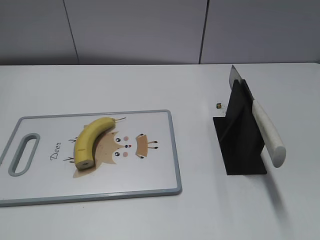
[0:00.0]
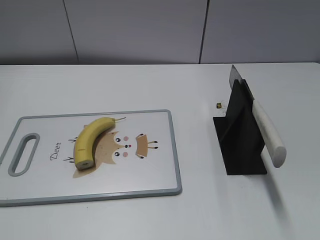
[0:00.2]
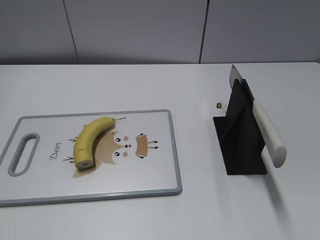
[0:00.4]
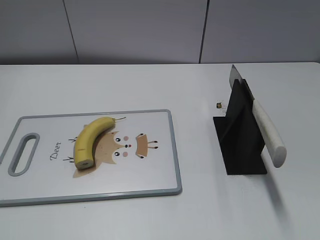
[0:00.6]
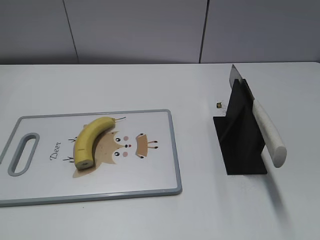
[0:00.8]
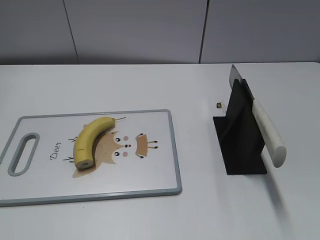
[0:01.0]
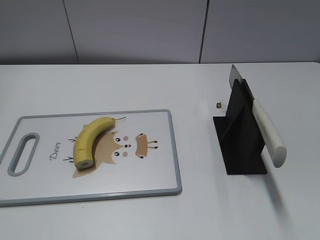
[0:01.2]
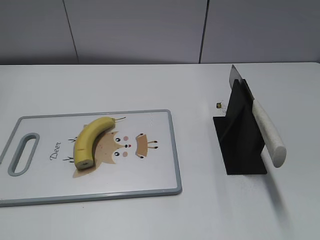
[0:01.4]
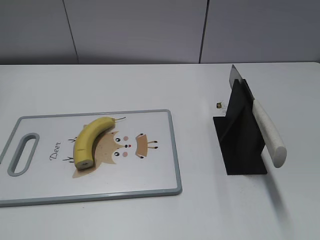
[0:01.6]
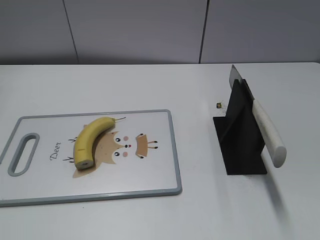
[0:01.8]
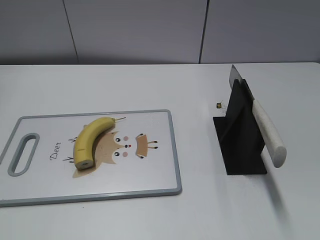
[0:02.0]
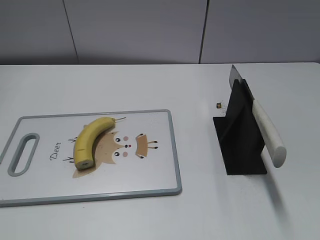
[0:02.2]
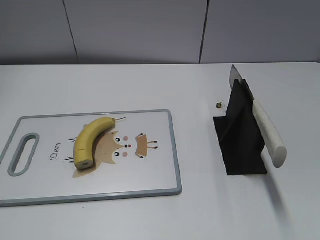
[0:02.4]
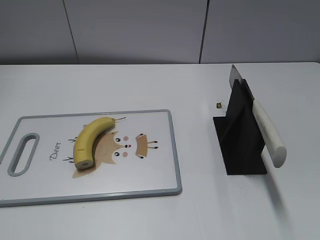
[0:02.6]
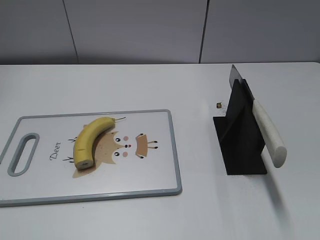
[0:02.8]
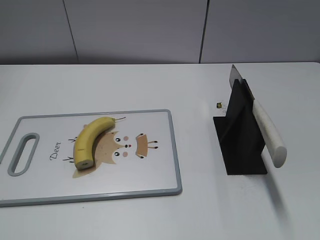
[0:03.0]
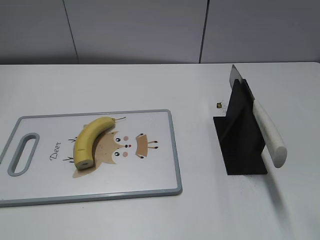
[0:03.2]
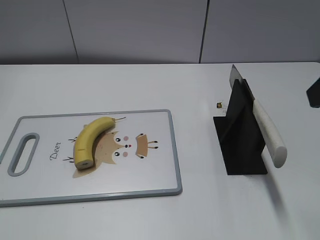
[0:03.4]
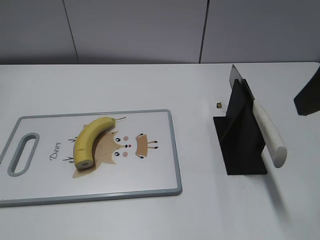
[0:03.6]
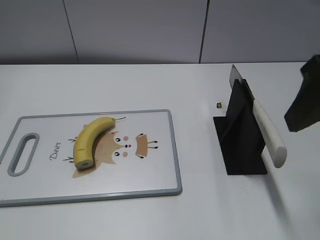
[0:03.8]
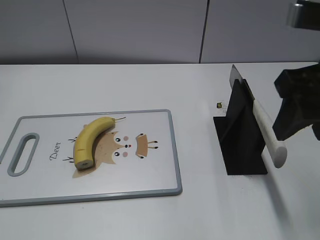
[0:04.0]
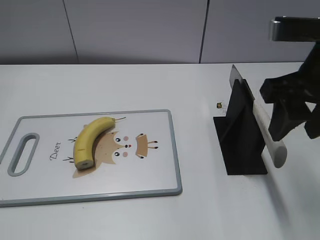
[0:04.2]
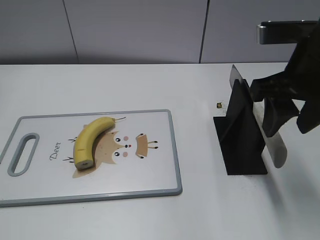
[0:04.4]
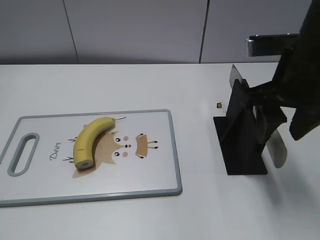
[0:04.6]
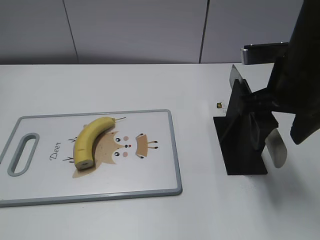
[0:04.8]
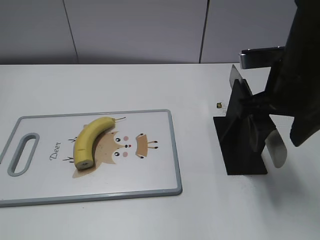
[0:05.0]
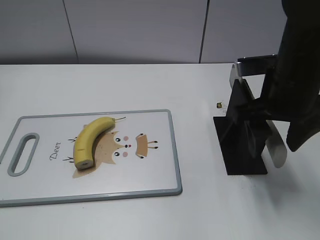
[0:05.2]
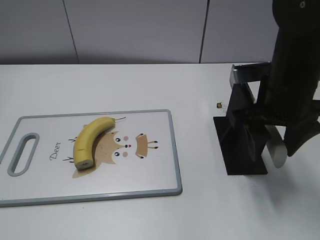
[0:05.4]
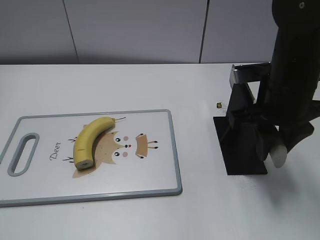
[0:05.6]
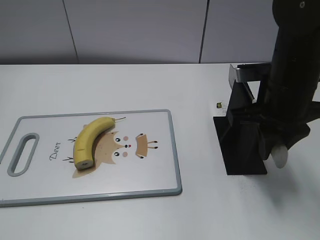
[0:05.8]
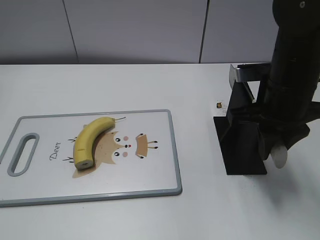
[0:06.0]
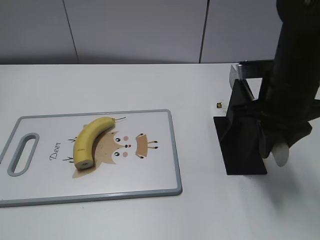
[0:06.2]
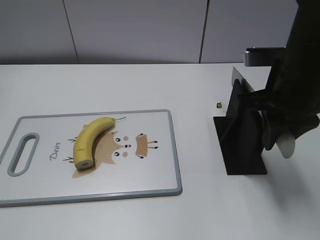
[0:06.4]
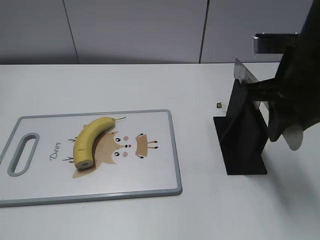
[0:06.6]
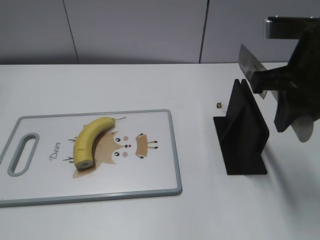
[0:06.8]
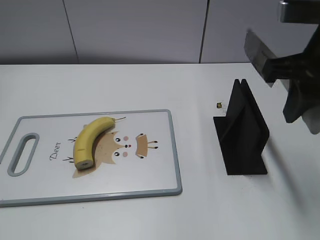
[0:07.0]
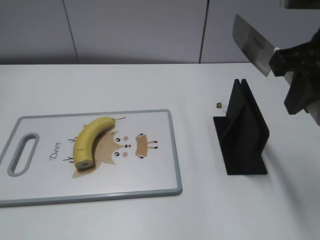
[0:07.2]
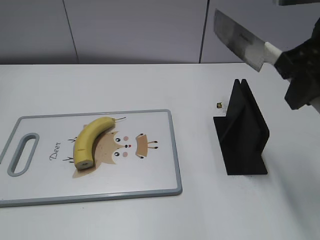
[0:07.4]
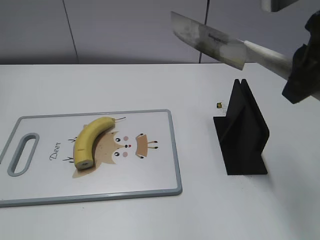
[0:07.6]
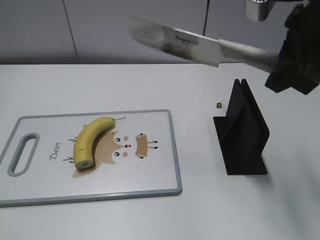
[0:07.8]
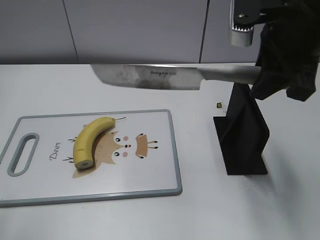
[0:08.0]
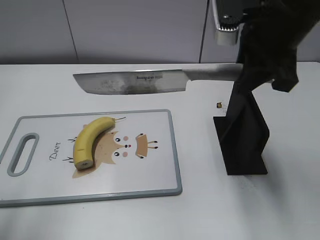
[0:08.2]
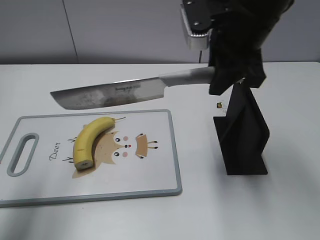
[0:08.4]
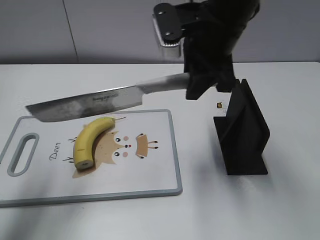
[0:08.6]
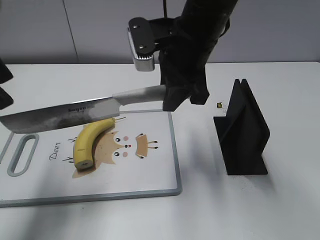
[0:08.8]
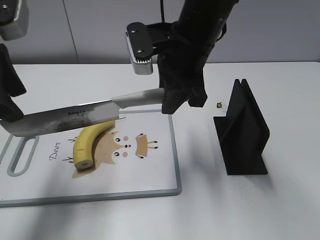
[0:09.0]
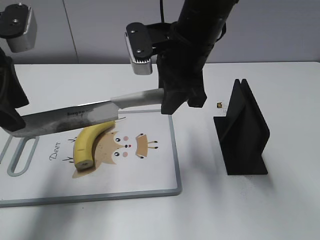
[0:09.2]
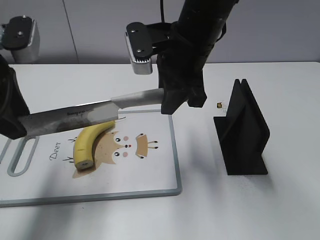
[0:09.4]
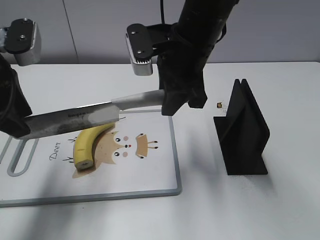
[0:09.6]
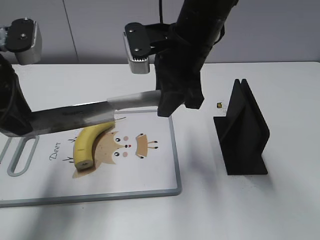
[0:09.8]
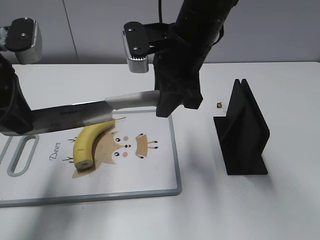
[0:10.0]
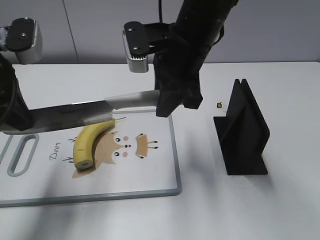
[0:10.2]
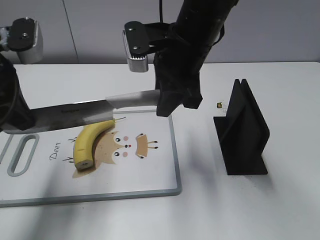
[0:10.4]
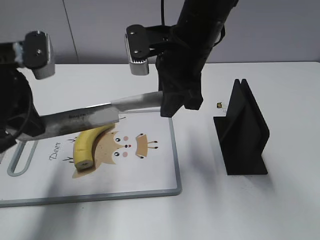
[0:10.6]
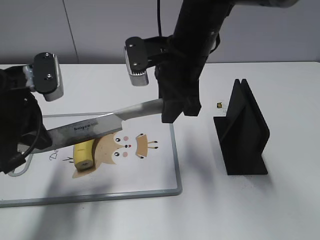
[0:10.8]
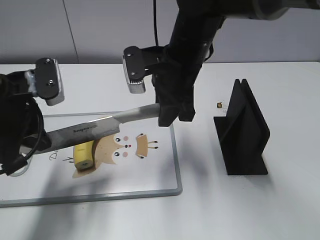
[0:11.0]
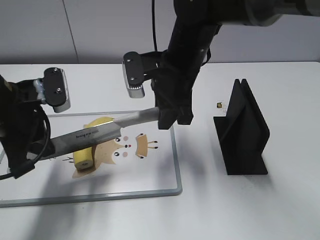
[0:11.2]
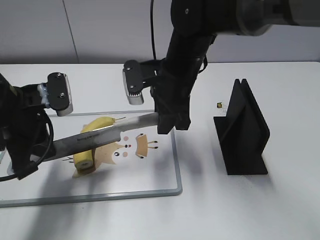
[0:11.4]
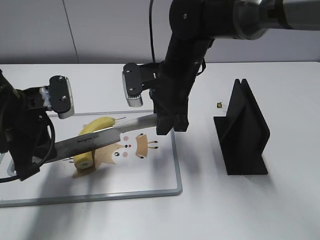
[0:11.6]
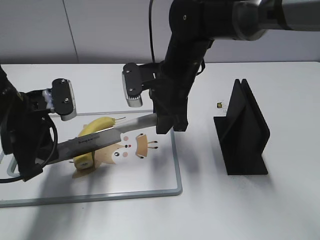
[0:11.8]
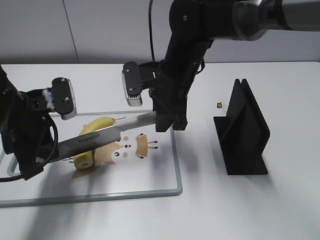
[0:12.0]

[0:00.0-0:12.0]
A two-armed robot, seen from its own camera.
Task of the whole recording: cut banana.
Step, 0:00.0 to 0:07.0: Grab the knife handle with your right hand.
0:03.0 to 0:04.4: The right gripper is displaced forward, downward and to the left by roughly 15 cm.
0:04.4 to 0:06.0: The right gripper travels downward by approximately 5 cm, and closes its fingers.
0:06.0 to 0:07.6: The right gripper is displaced upward by some 10 cm.
0:07.6 to 0:09.0: The right gripper is displaced to the left, forward and downward by roughly 20 cm. Meanwhile the left gripper shifts approximately 25 cm forward.
0:09.0 to 0:10.4: The left gripper closes up.
0:10.4 to 0:12.0: The grippers both shift downward by approximately 10 cm.

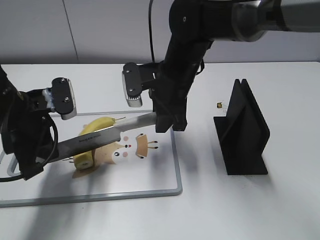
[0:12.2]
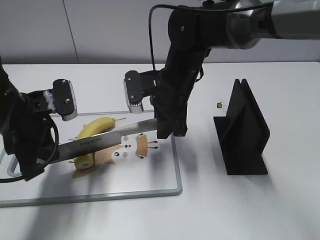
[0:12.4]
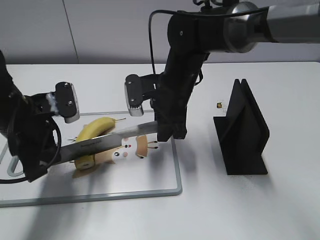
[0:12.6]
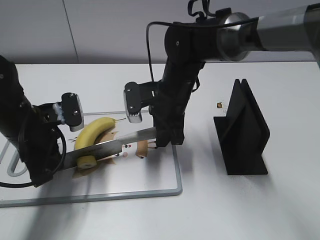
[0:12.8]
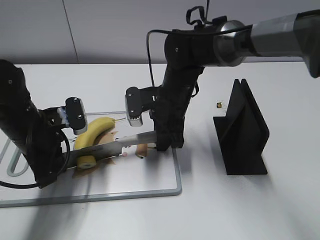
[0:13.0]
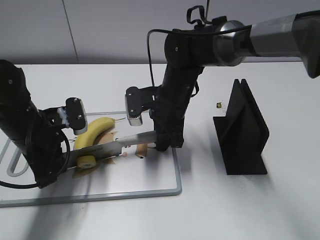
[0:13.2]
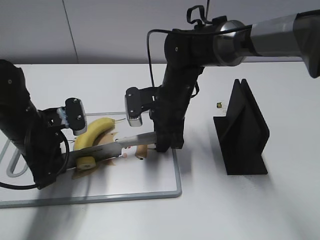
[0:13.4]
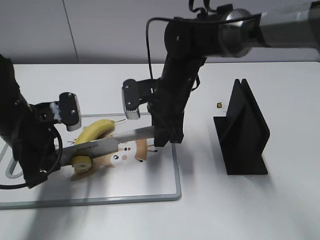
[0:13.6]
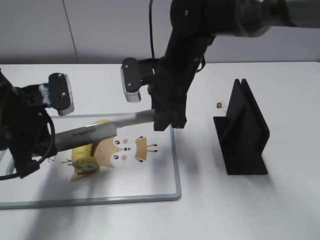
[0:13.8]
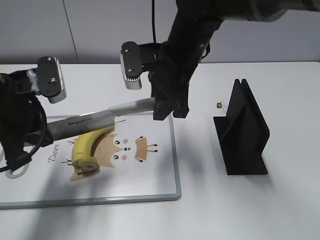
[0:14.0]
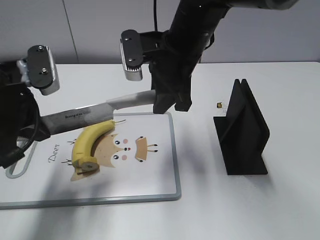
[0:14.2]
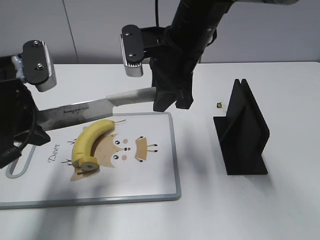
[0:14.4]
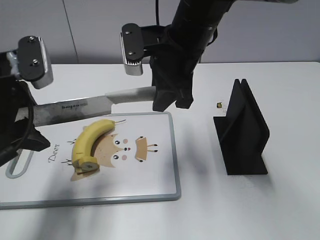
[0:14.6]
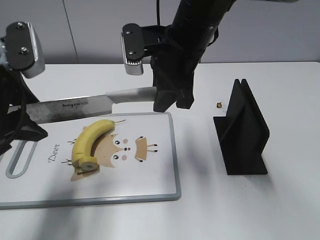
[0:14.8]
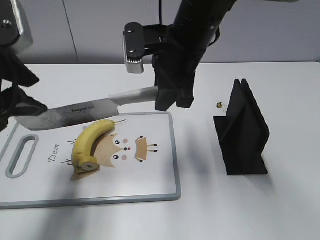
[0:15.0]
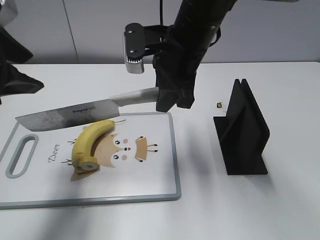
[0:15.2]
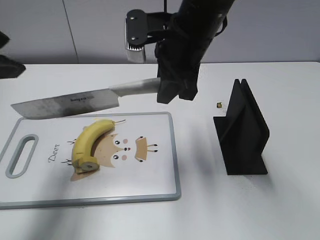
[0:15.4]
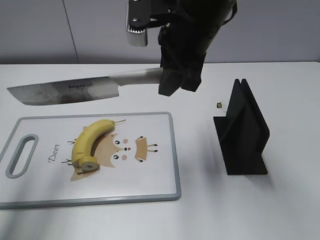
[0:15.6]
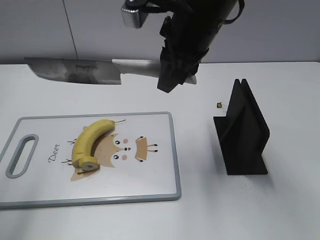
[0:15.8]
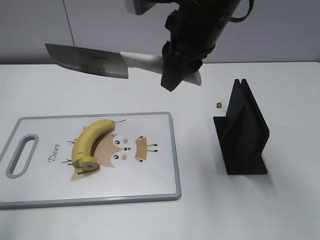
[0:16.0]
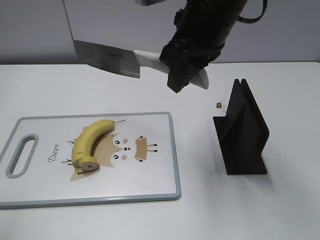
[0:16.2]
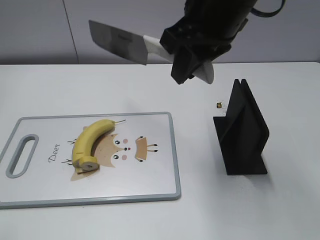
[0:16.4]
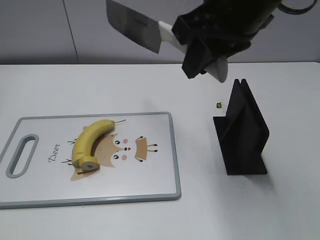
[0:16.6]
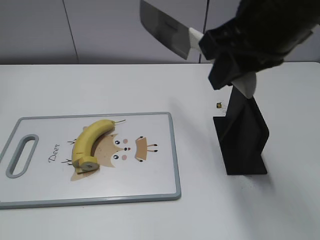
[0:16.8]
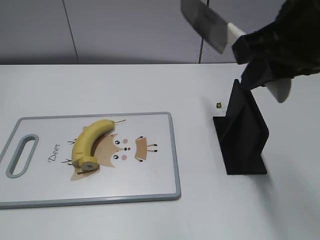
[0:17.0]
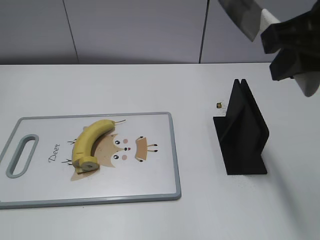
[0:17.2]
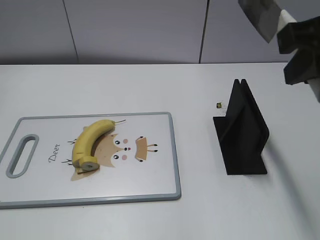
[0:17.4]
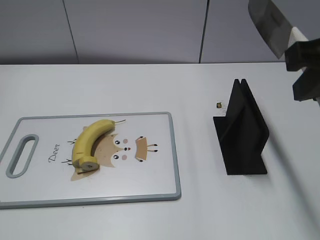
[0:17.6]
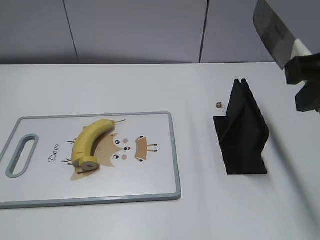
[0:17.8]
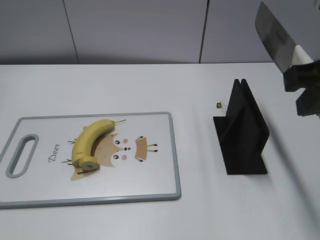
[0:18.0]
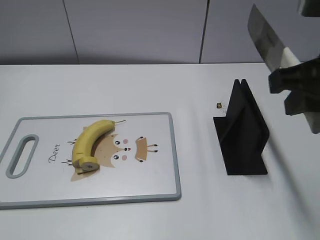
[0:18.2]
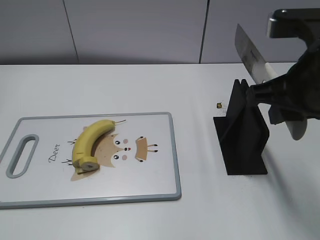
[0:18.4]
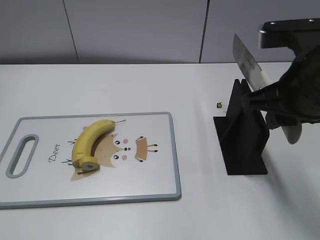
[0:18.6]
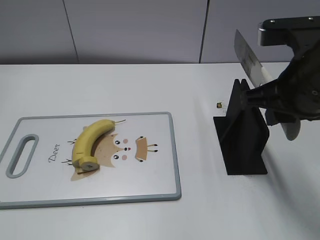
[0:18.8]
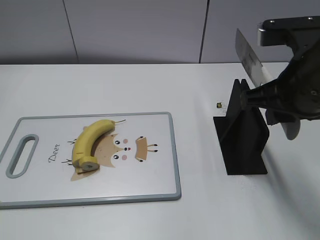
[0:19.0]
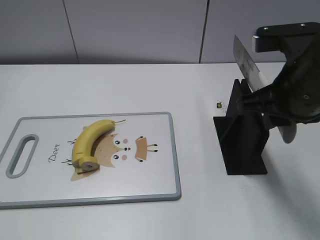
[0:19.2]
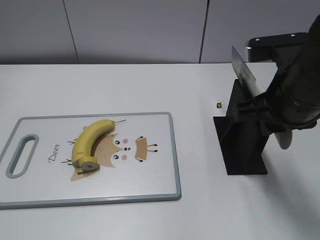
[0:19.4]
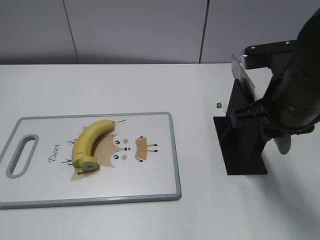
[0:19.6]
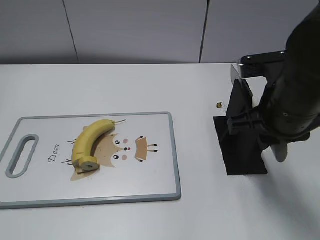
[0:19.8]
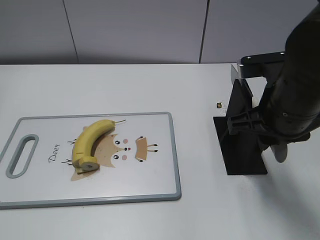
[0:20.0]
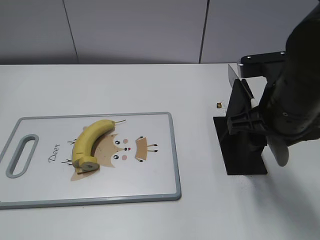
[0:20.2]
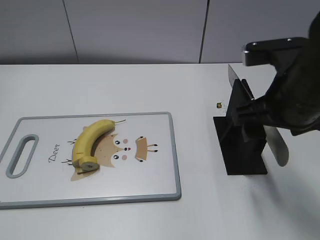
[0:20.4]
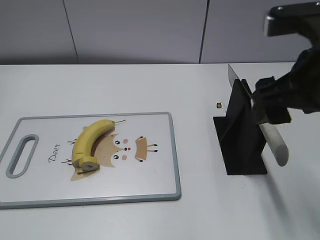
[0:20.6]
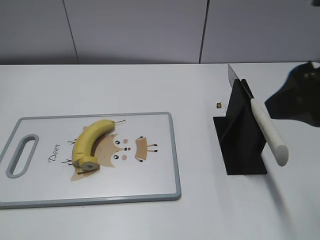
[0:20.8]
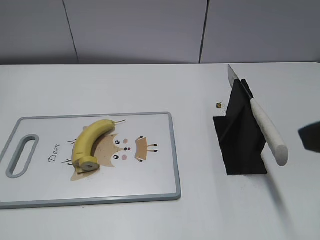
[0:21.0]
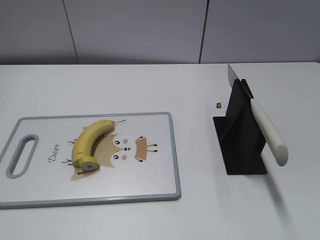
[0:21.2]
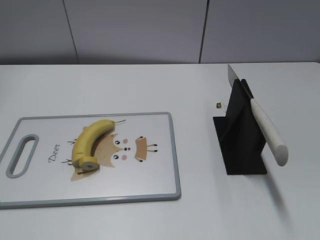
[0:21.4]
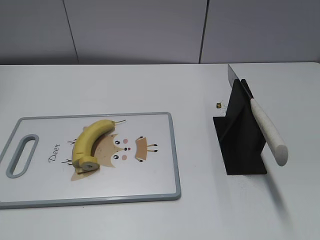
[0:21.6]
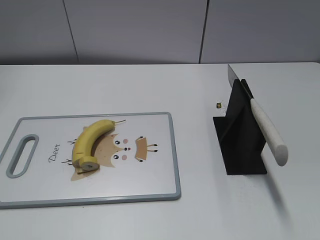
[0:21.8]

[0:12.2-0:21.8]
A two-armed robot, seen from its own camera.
Task of the whole recording: cut banana.
Step, 0:13.4 to 0:16.6: Cut the banana with your right hand.
Step, 0:16.8 to 0:17.4: Lift the knife with your right hand.
0:12.2 to 0:13.8: The grippers stay close to where they were, moving slightly.
0:13.8 to 0:15.4: The left gripper is displaced upward by about 15 cm, and opens its fingers, while the right gripper heads upward, covering some 10 cm.
0:15.4 to 0:17.0: The left gripper travels backward by approximately 20 cm. Meanwhile the right gripper shifts some 15 cm backward, to the right and upward.
0:17.0 to 0:18.6: The left gripper changes place by about 5 cm. Meanwhile the right gripper moves downward, roughly 5 cm.
0:18.6 to 0:20.2: The right gripper opens up.
0:20.2 to 0:21.8: The right gripper heads backward and to the right, covering approximately 30 cm.
